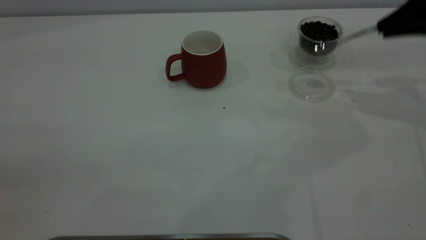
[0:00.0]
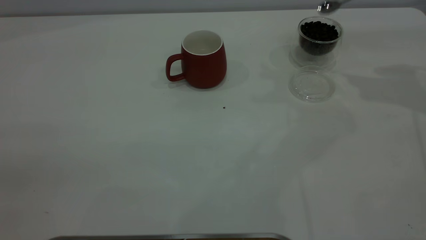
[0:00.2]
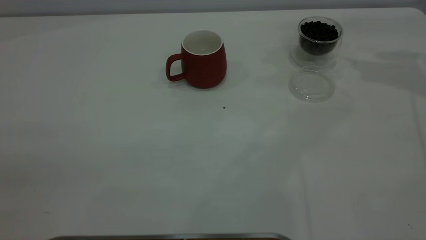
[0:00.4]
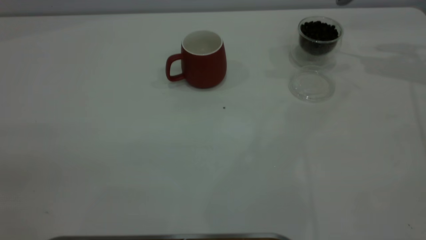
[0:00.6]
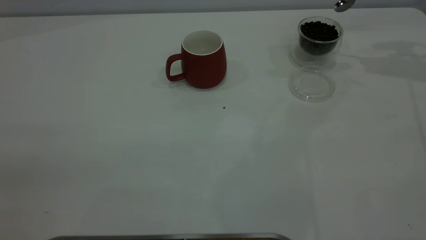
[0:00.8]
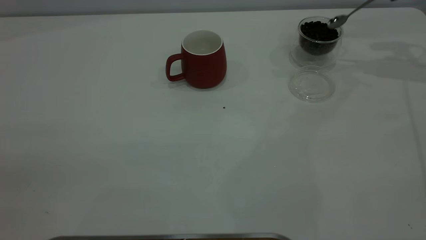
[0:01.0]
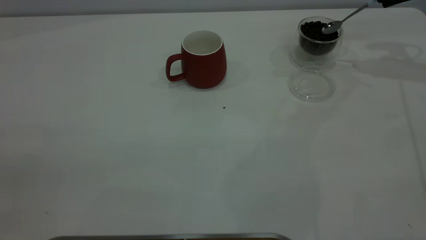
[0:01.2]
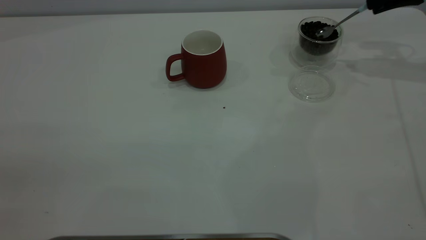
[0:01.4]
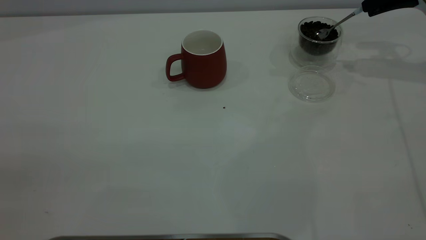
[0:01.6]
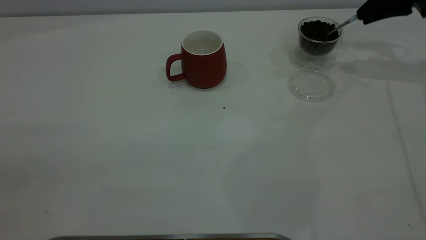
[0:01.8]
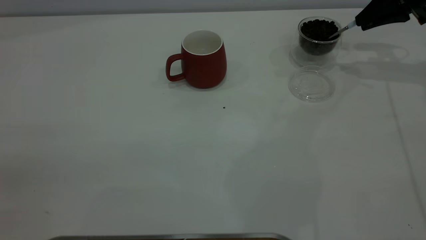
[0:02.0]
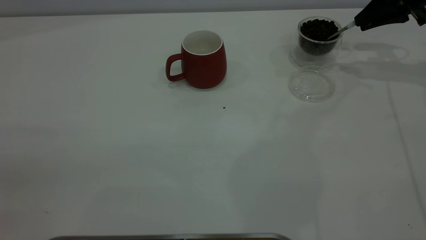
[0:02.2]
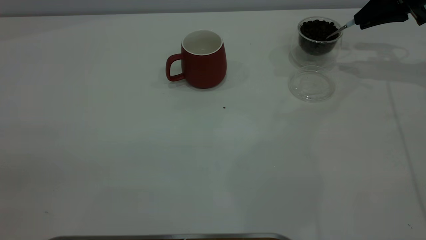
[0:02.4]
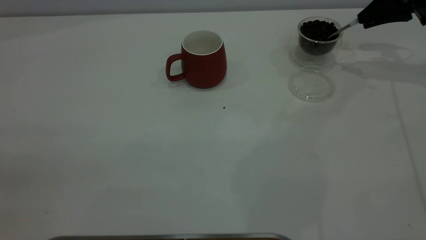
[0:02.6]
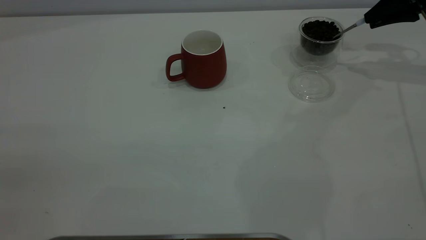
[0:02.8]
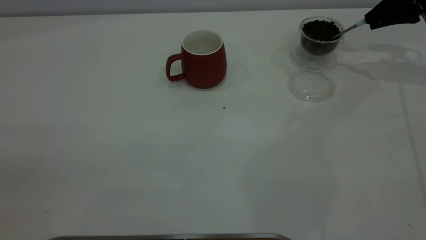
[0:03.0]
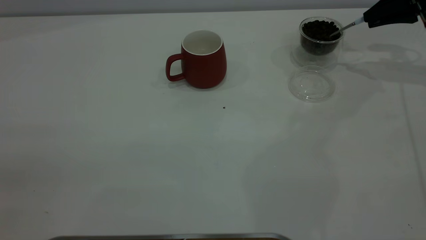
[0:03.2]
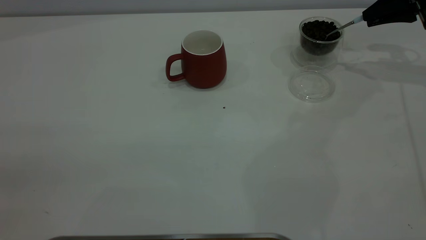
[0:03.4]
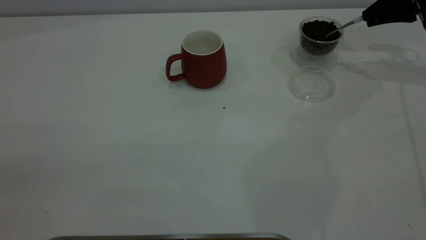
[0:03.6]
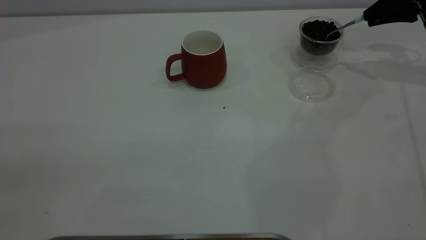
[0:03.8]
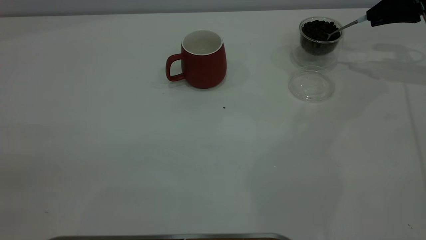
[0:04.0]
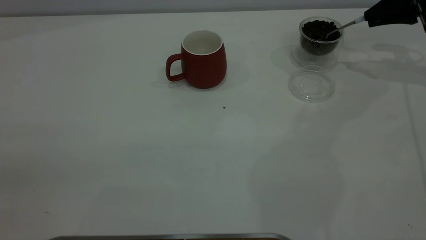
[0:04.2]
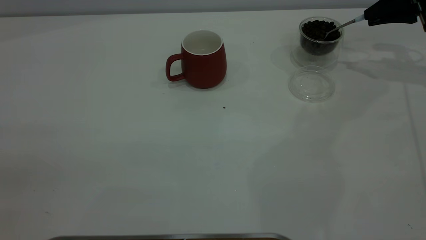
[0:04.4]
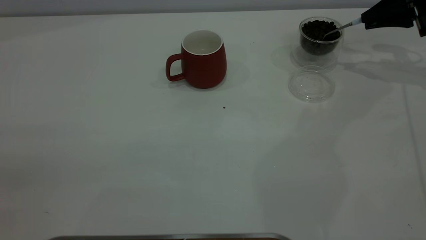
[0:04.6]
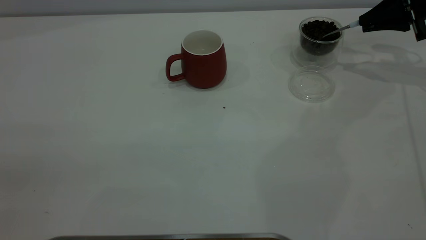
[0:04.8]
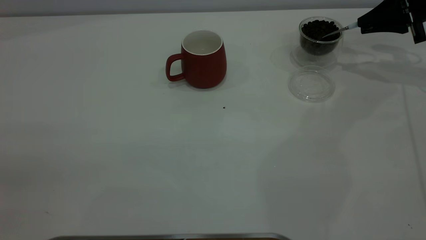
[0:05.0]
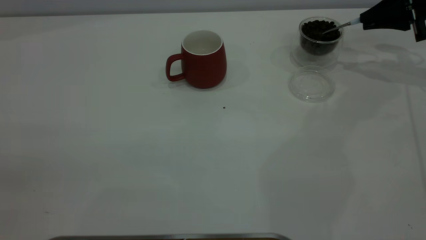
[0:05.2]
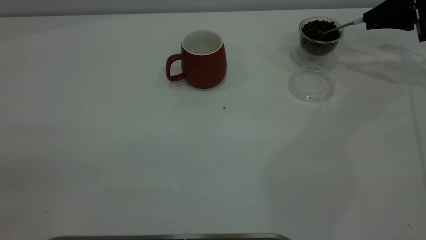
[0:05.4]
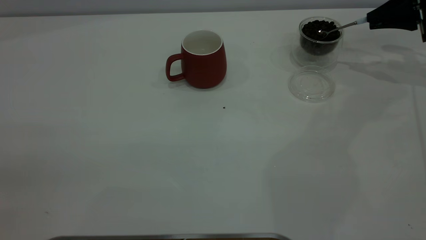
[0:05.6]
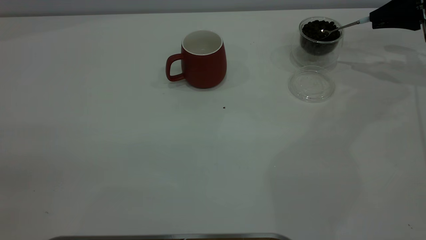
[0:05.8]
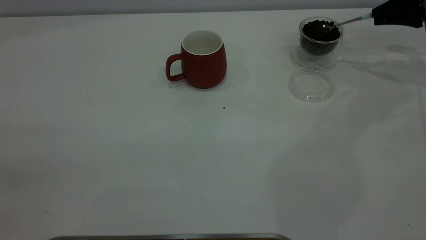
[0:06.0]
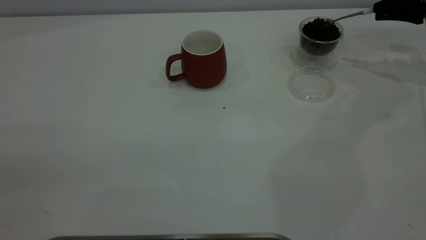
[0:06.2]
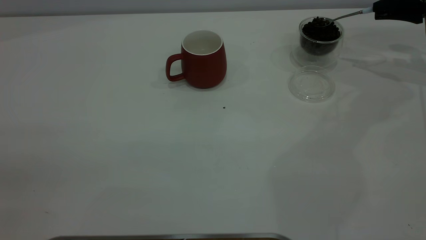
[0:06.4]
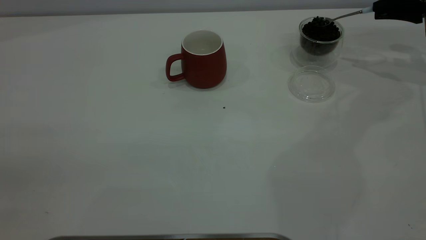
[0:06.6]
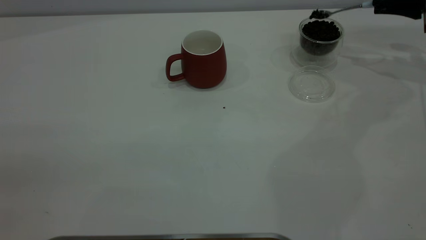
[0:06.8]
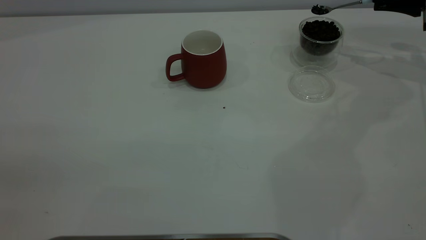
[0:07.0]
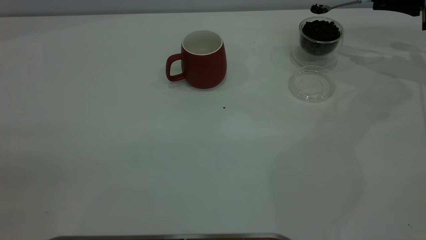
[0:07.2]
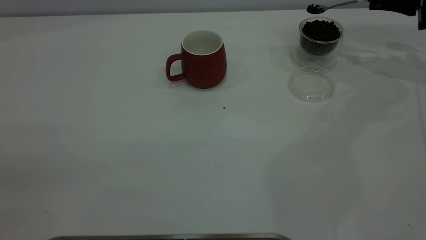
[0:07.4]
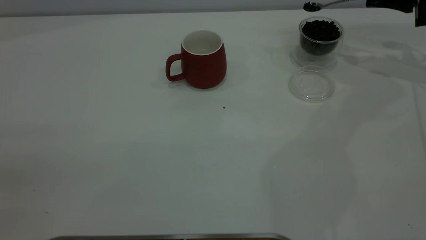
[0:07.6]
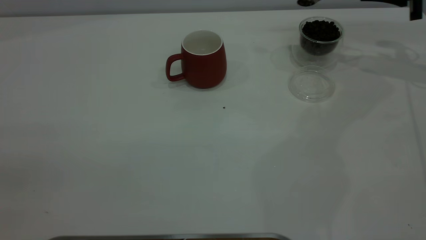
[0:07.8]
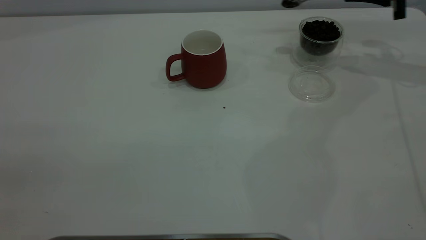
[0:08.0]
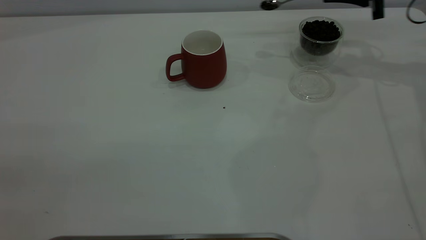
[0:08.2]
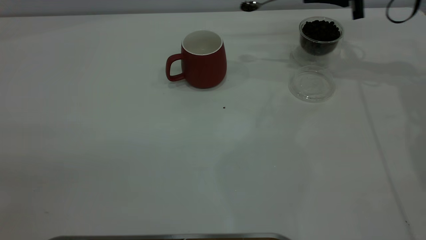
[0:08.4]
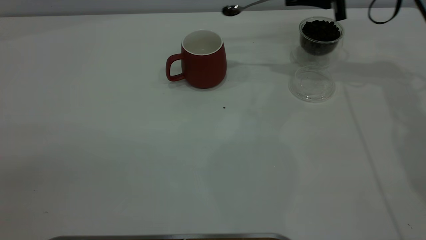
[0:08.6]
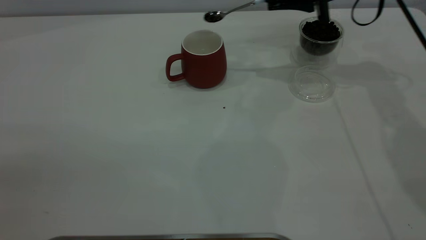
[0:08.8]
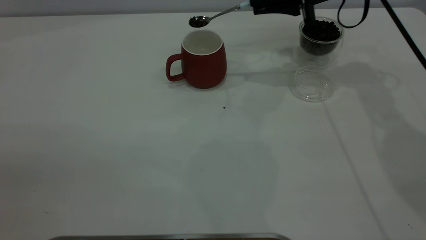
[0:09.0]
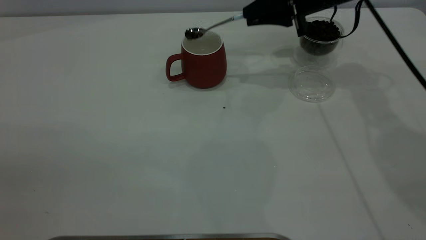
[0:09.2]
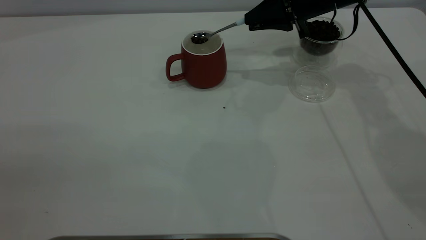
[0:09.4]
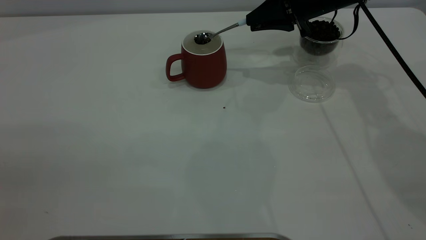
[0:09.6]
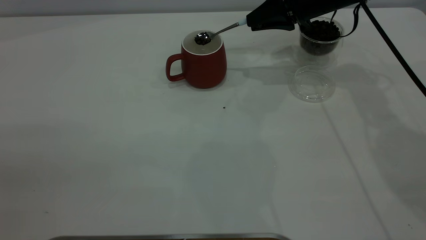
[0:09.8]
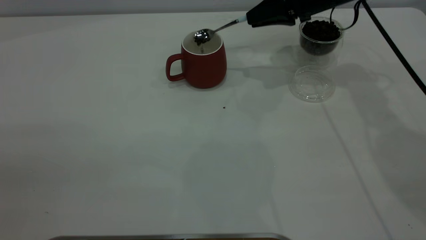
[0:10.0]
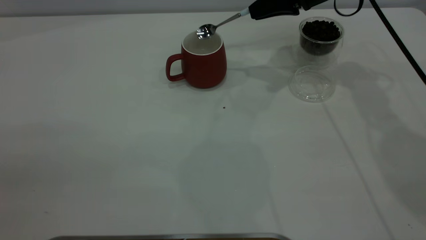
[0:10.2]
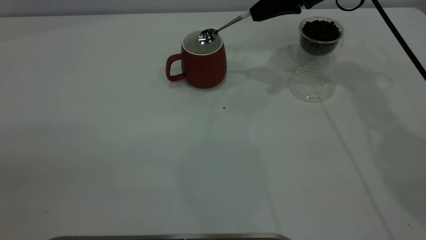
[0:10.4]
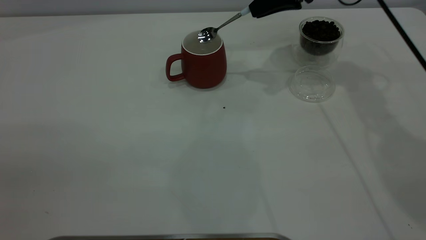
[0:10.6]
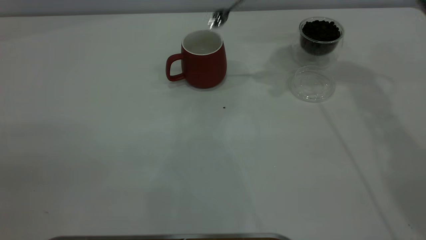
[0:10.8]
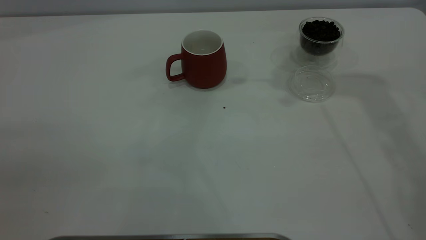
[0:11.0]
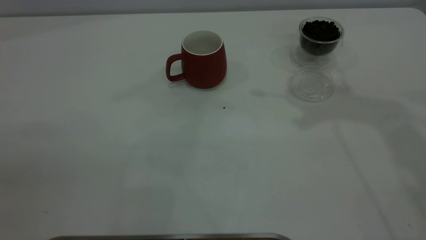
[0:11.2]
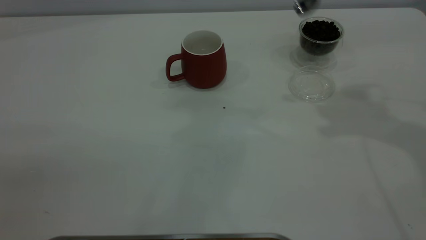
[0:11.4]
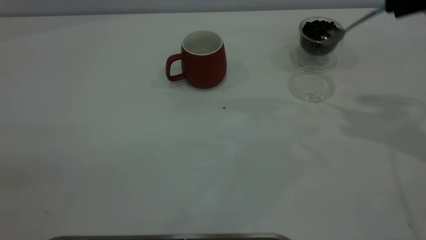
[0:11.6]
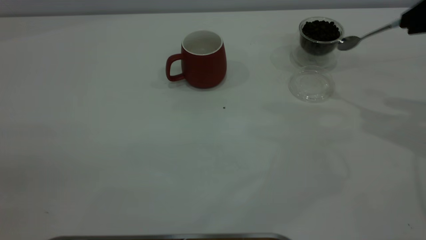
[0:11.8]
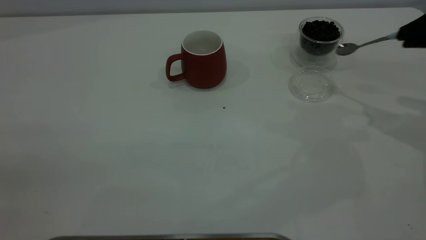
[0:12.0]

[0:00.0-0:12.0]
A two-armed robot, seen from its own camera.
Task of the whole recording: the left gripper place the red cup in the center of the table, the right gripper take the blue spoon from the cup lid and scoop out the coffee beans from the coffee cup and put them into the red cup, the right gripper put the spoon back into the cup lid.
Step, 0:00.0 to 0:10.4: Scoop a spoonful of beans into the cup.
0:00.0 to 0:01.6: The right gripper is displaced forward by some 10 cm.
0:01.6 to 0:03.0: The grippers stay close to where they were, moving slightly.
0:06.0 to 0:07.6: There are only small adjustments of the grippers.
0:07.6 to 0:09.0: The right gripper heads to the left, covering approximately 20 cm.
0:10.4 to 0:12.0: The right gripper goes roughly 25 cm to the right and backward, and reaches roughly 20 cm upward, then returns.

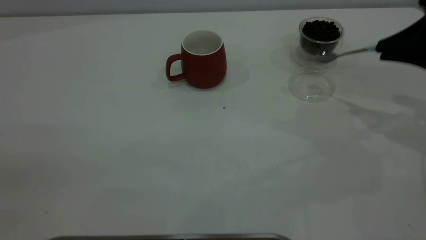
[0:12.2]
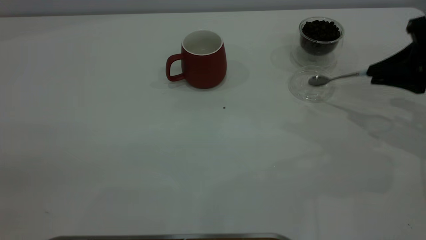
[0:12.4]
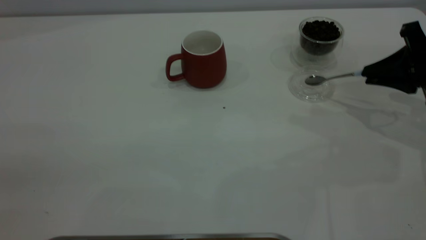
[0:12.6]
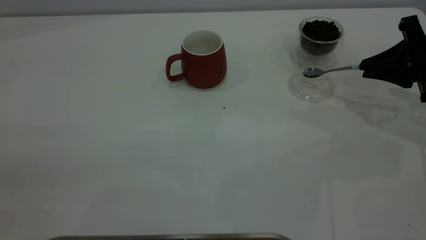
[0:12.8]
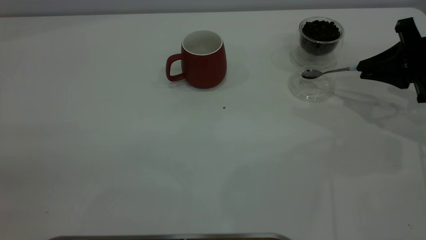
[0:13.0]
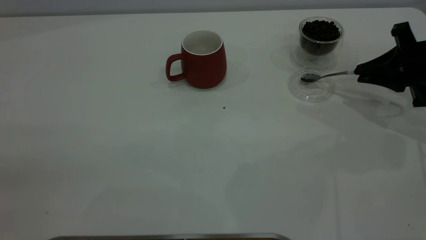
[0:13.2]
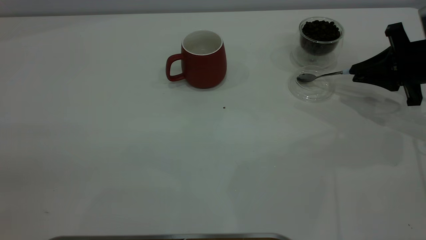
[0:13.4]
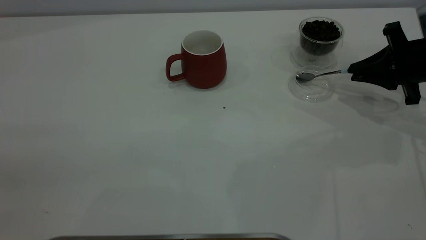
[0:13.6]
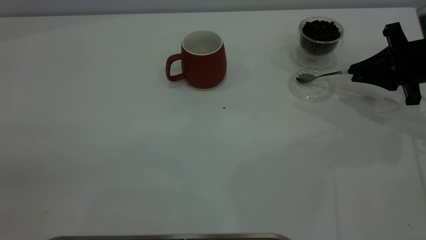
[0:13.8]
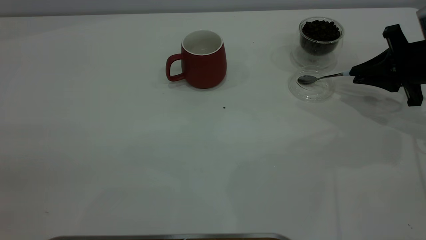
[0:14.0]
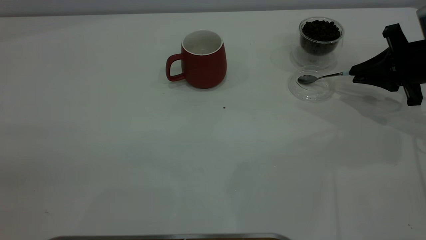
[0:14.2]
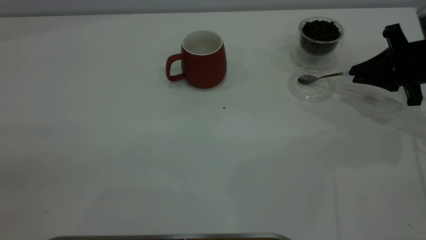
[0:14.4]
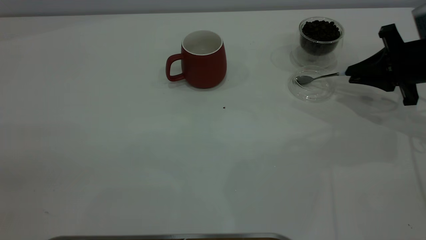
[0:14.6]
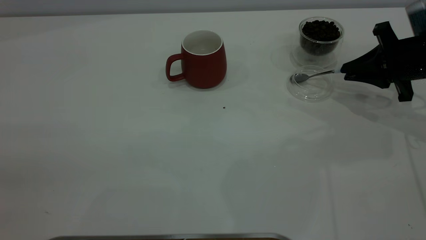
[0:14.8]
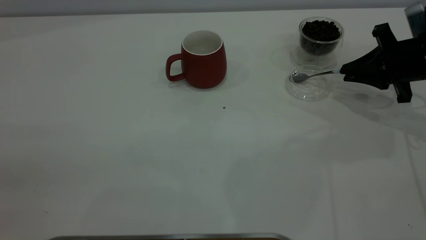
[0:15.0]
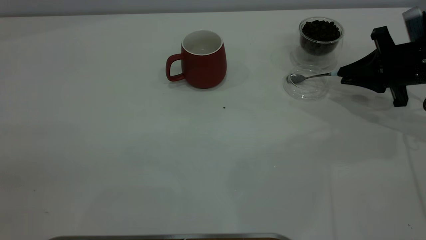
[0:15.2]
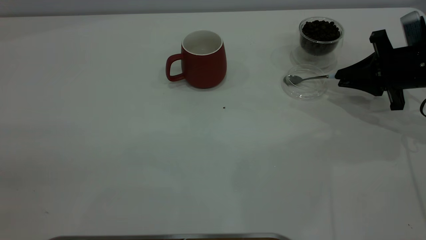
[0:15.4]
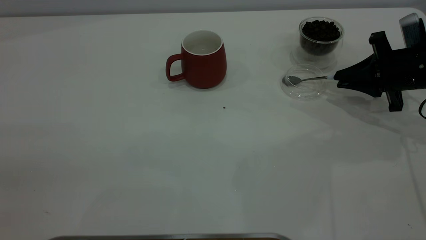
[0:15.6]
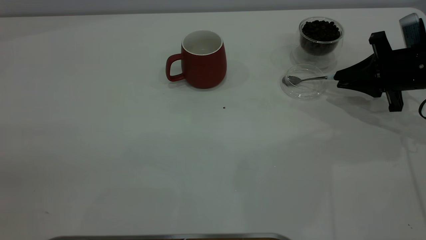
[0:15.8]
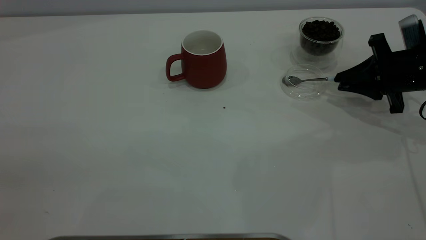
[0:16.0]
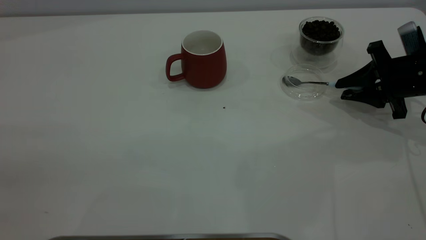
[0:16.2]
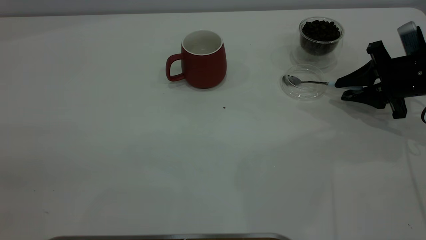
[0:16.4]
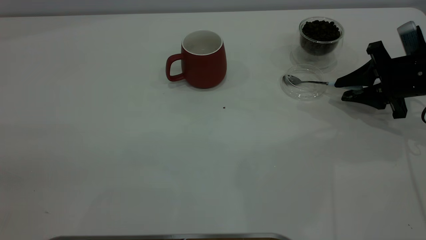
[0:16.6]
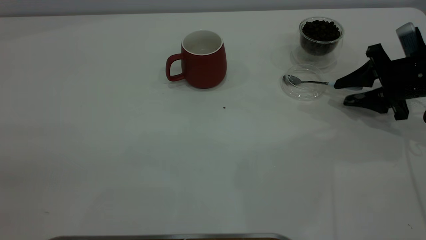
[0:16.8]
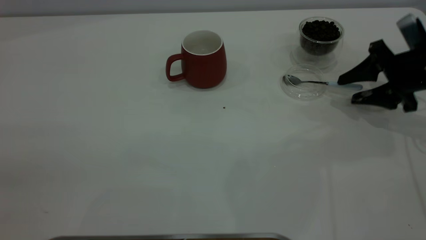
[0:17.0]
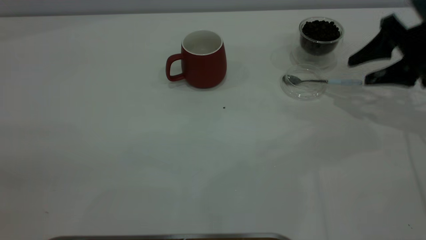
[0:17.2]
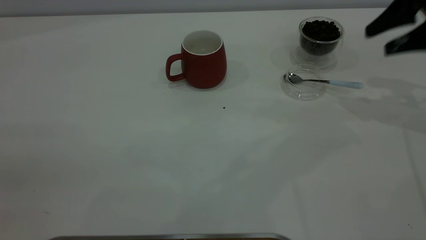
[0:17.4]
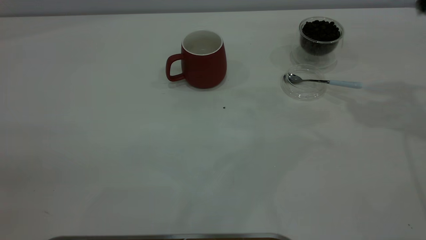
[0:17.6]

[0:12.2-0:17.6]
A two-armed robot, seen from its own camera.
Task of the whole recording: the left gripper place the red cup in the center of the table, the right gripper take the blue spoon from the cup lid and scoop out the coffee beans from the coffee cup and put them into the red cup, the right gripper put the spoon back into the cup lid.
Step, 0:12.2 to 0:17.2: Place the spoon back in its original place.
0:12.2 to 0:13.6: The right gripper is displaced downward by about 5 cm.
0:13.6 to 0:15.0: There are only small adjustments of the grippers.
0:15.0 to 0:16.2: The right gripper opens up.
0:16.2 to 0:17.6: The right gripper travels upward by approximately 25 cm, and opens.
